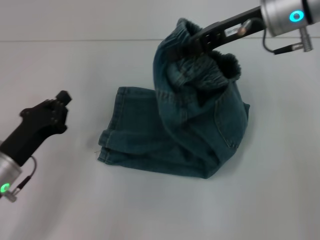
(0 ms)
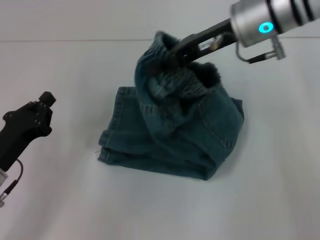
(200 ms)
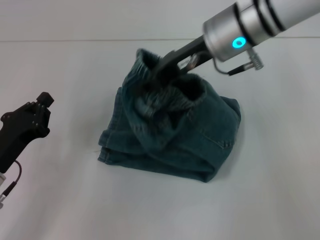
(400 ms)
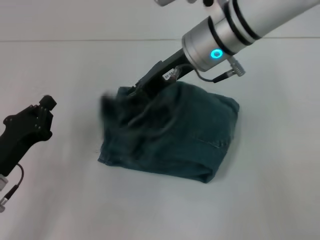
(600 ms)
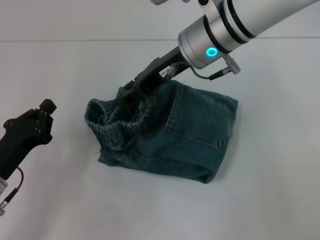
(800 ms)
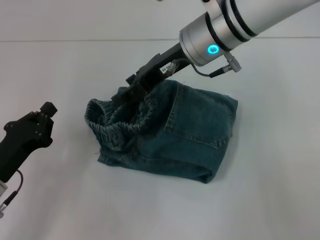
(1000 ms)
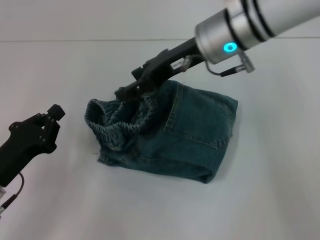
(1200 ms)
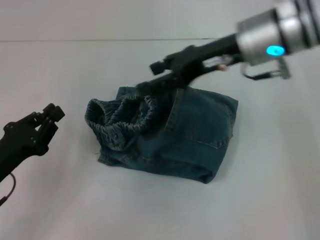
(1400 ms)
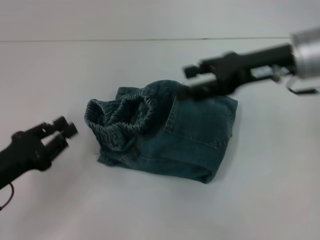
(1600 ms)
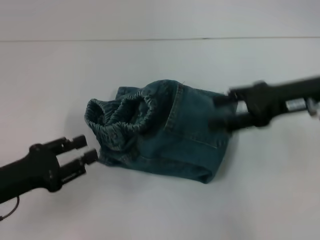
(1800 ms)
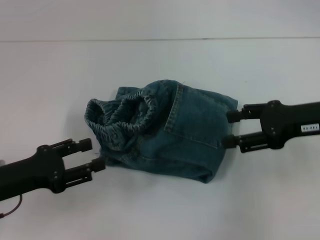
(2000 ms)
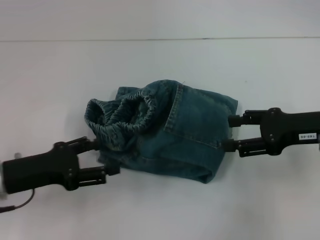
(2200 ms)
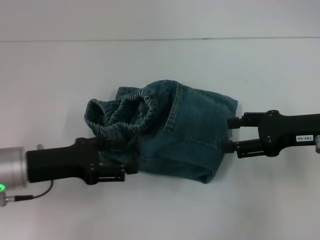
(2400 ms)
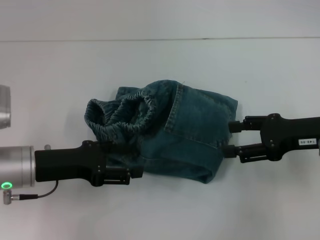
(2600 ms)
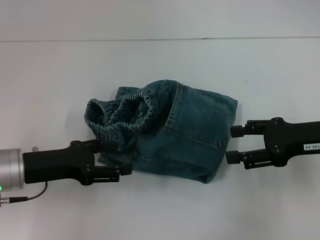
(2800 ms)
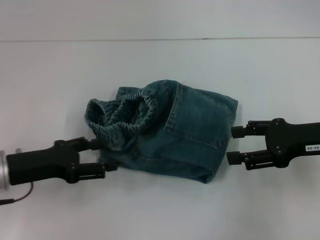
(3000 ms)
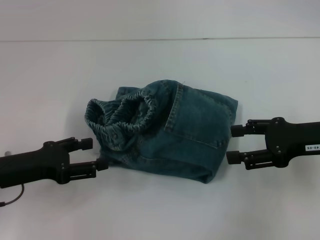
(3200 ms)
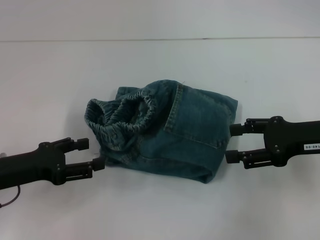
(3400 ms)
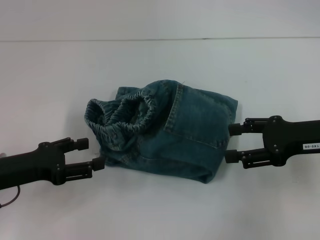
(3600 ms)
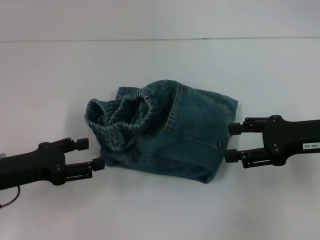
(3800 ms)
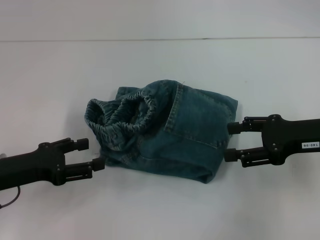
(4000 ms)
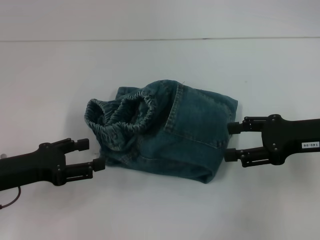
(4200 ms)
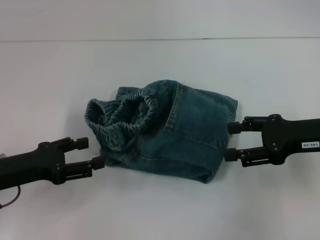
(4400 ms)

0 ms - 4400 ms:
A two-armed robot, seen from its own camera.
Step, 0 ms - 1000 ms: Fold to the left with your right hand.
0 ms - 1400 ms: The right gripper reaches roughly 10 cm to the left, then returns, and opens its fingers.
1400 ms - 3000 ms: The left gripper ends up about 5 cm from where it was, and opens its fingers; the right gripper is displaced to the right, downward and backward by about 20 cm.
3000 ms - 4400 ms: There are only small adjustments of the grippers.
